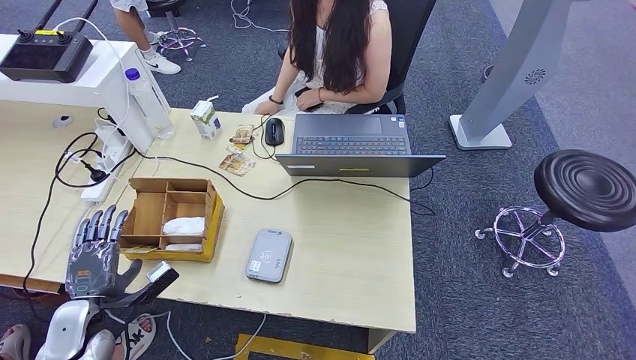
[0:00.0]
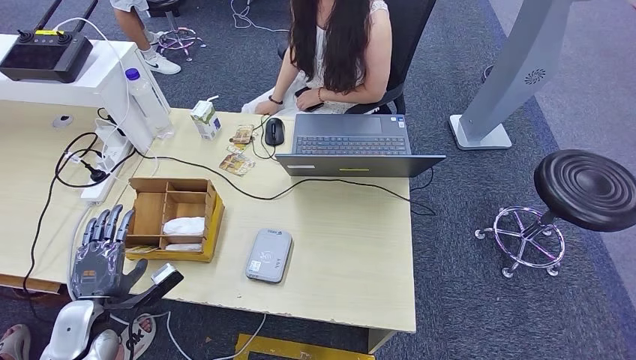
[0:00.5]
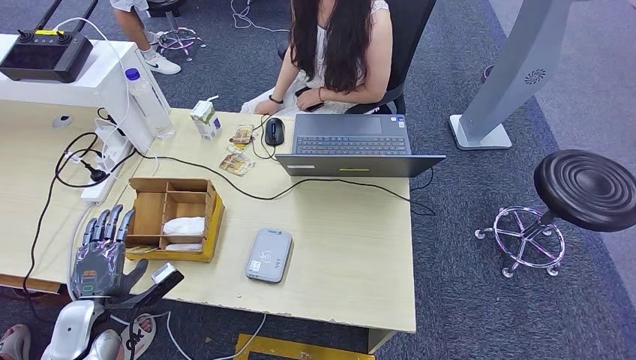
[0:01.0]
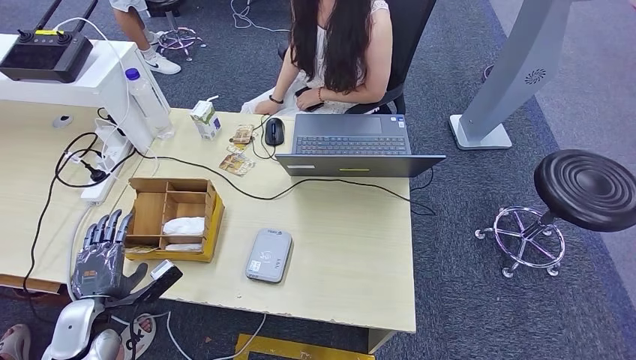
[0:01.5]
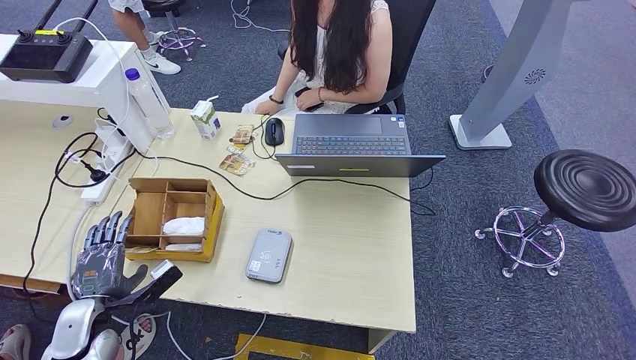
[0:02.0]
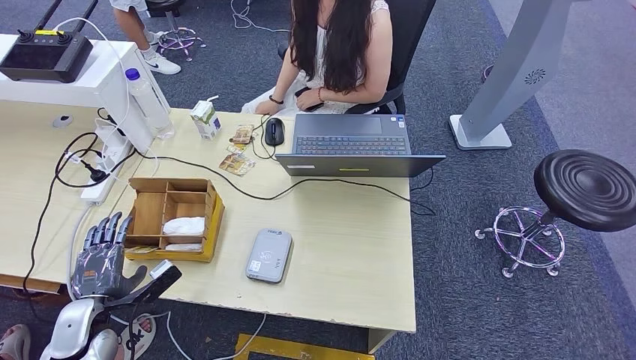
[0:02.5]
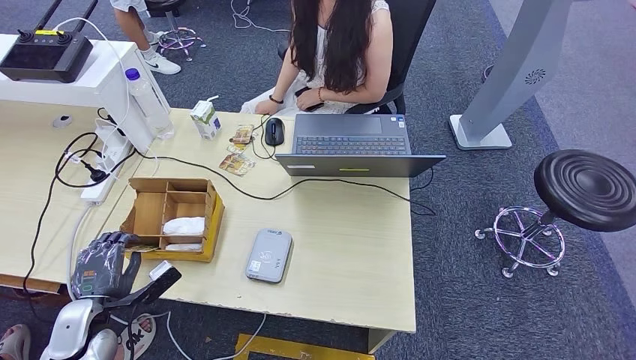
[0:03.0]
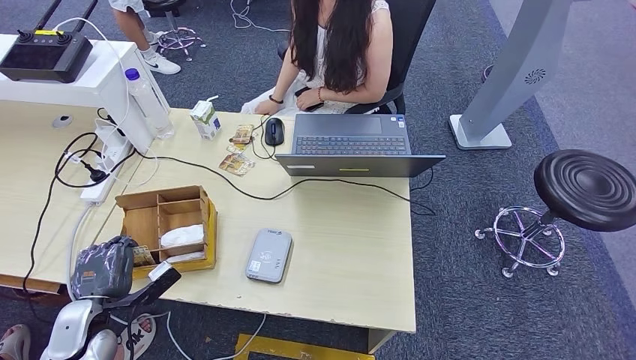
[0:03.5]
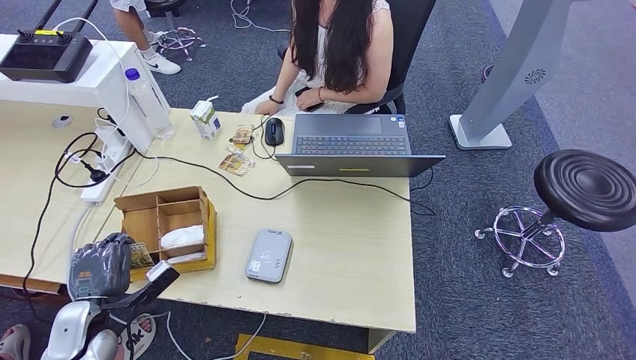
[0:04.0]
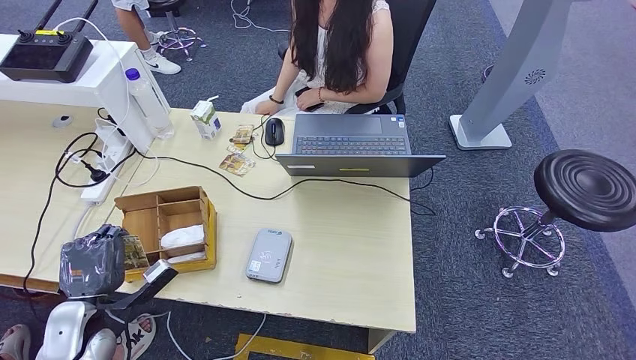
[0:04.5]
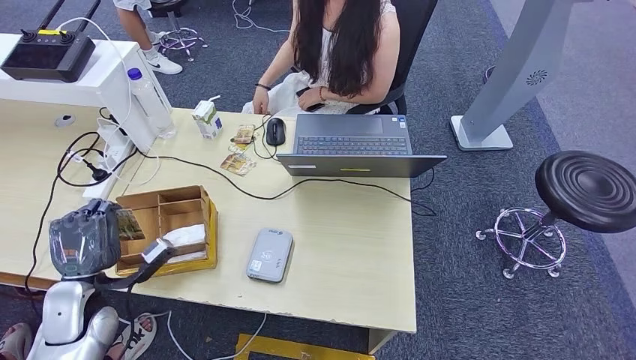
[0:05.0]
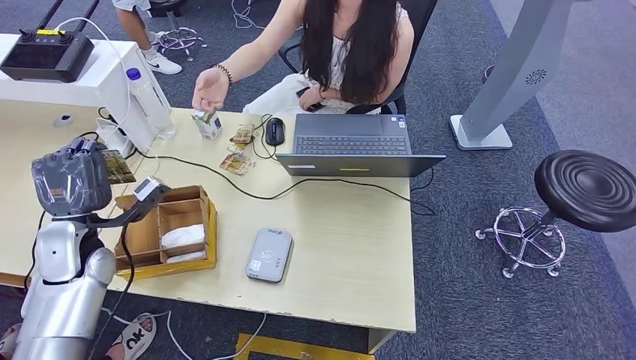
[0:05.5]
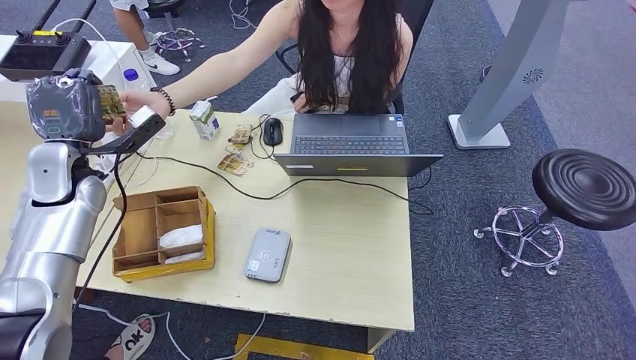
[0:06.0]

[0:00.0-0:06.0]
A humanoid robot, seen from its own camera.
Step, 0:00.0 to 0:04.5: Pick up the room key from the key card box.
Step, 0:05.0 to 0:06.0: Hand the room key to the person.
0:00.0 to 0:04.0: The hands make only small movements.
